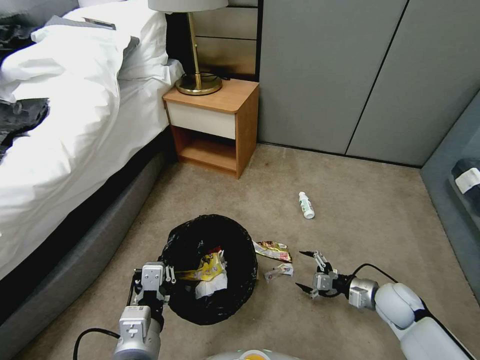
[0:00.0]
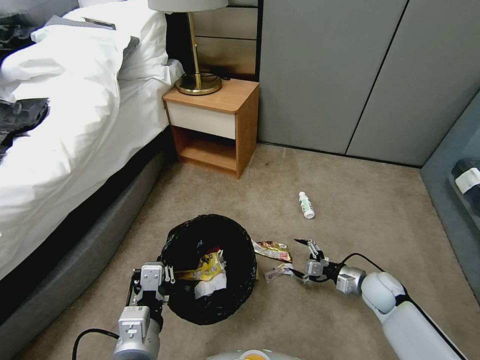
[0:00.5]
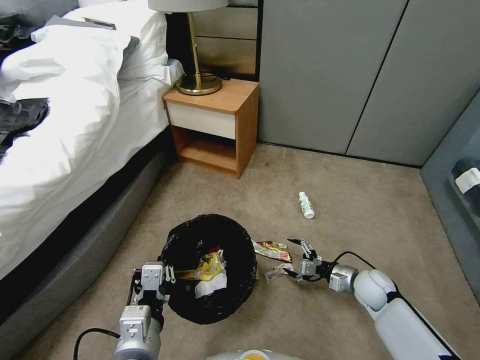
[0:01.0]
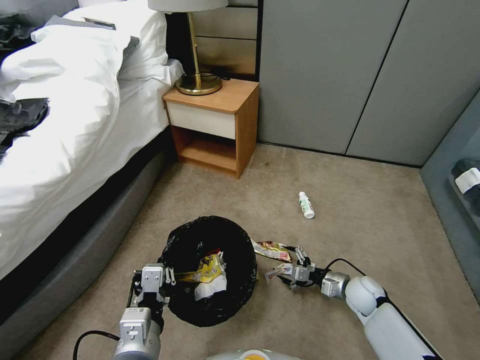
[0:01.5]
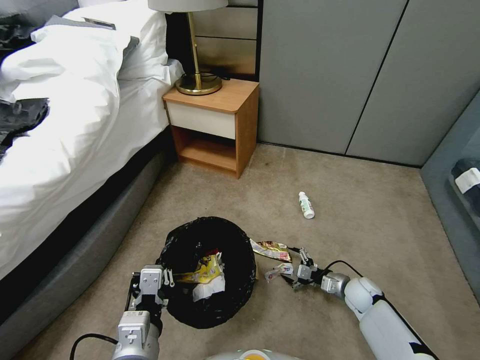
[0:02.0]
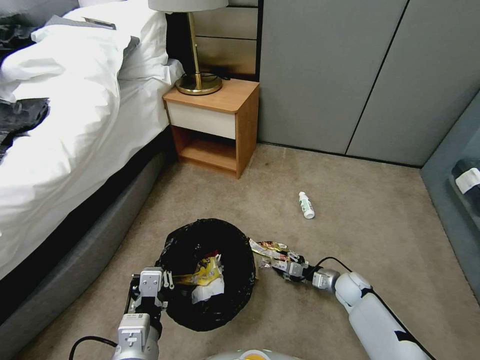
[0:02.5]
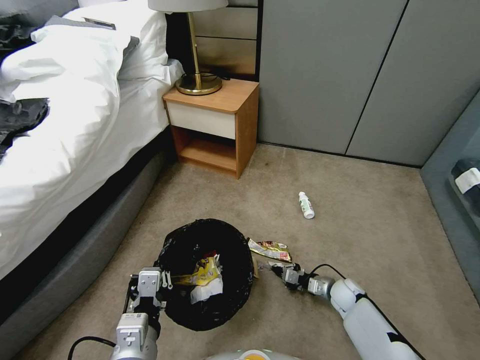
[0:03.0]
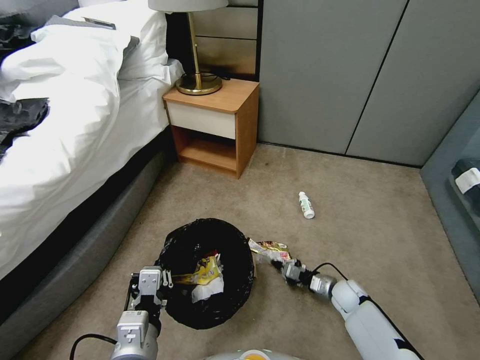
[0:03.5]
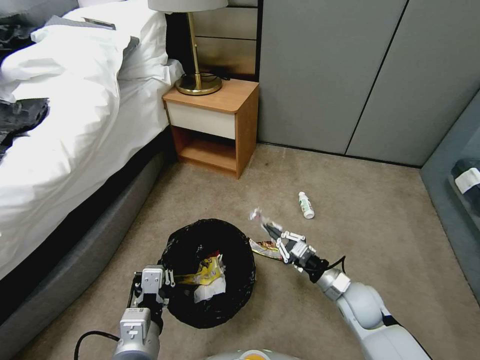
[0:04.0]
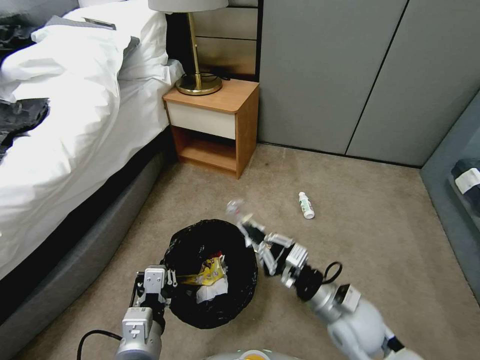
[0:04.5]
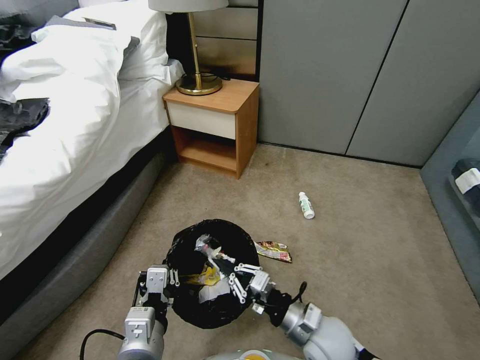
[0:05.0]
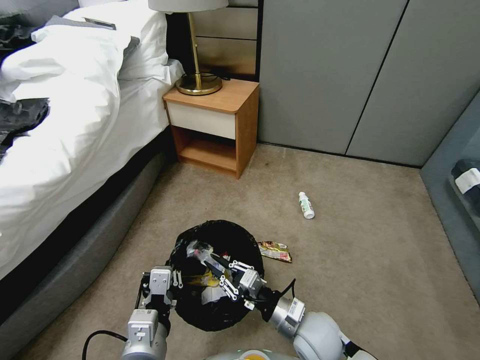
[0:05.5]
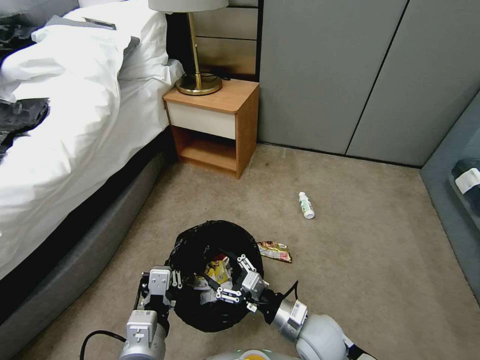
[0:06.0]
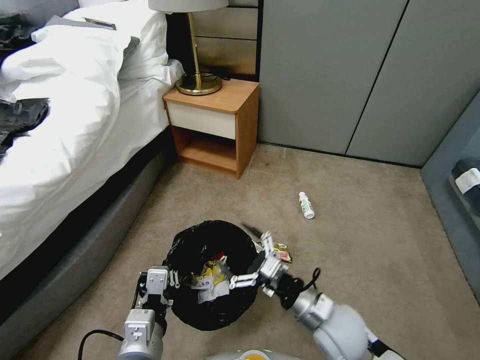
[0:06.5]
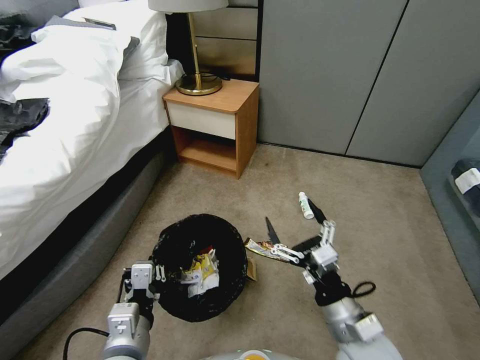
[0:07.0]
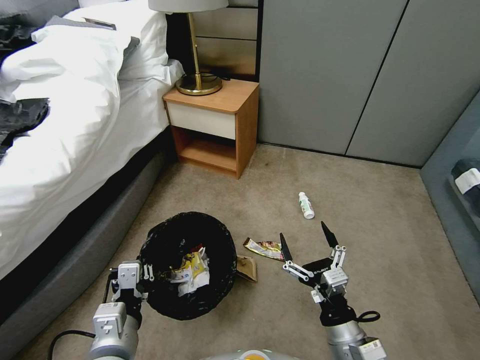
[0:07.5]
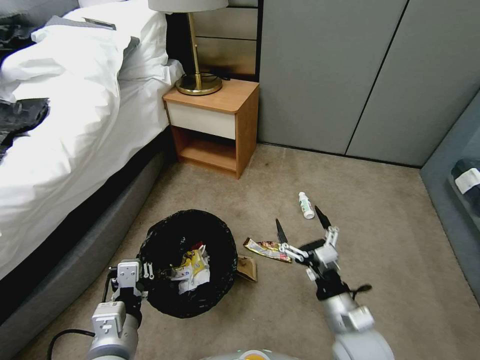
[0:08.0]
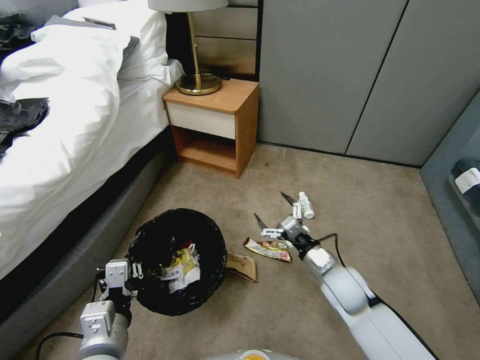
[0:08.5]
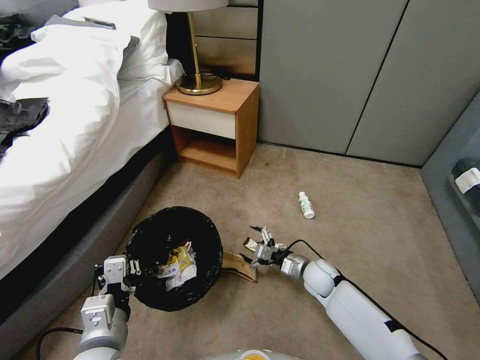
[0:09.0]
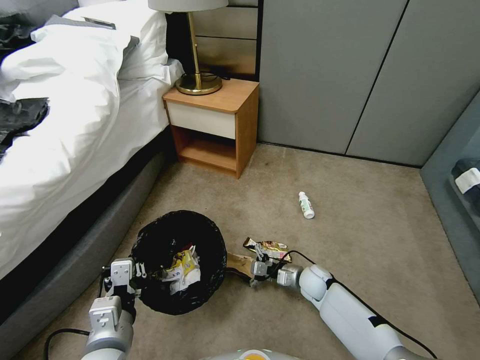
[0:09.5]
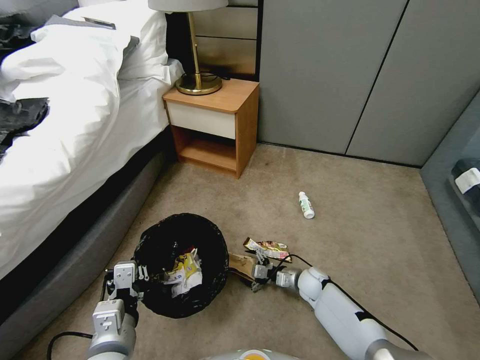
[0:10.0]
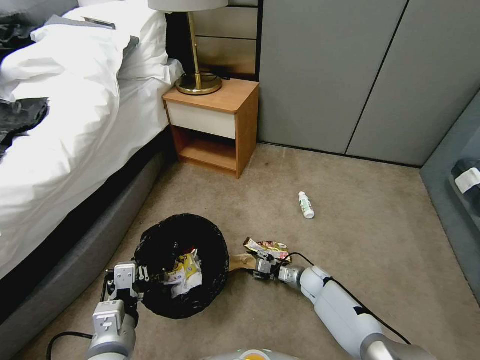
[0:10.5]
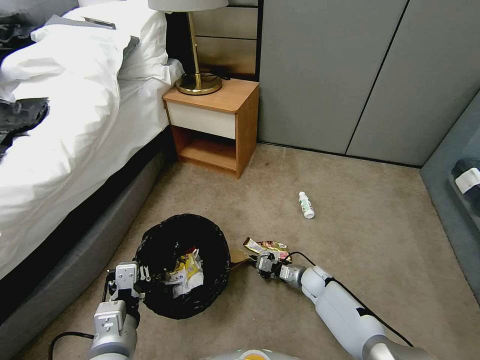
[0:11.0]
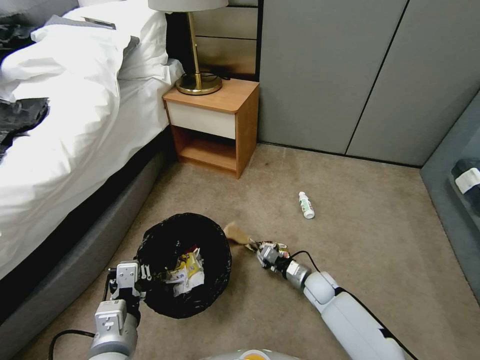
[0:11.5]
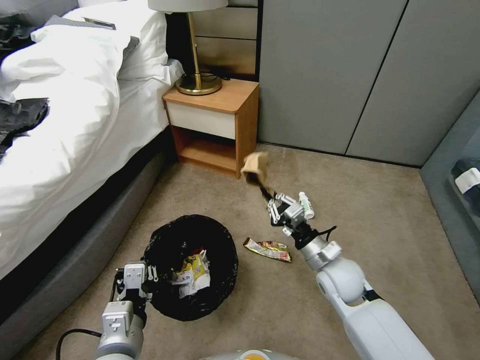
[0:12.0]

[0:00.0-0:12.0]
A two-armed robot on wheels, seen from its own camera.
Task of the whole recording: Pick up the trash bin, then pick up the garbage from the floor and place it into the trash bin.
0:00.0 to 0:02.0: The right gripper is displaced downward by some 10 cm.
0:02.0 to 0:04.0: The right gripper shifts some 15 cm upward, to the left and backward, and closes its fingers.
0:04.0 to 0:06.0: The right gripper travels to the left and backward by about 15 cm, and opens.
0:06.0 to 0:08.0: The right gripper goes roughly 10 cm to the right and upward.
0:08.0 to 0:10.0: The right gripper travels downward and forward by roughly 30 cm.
0:10.0 to 0:12.0: The right gripper moves upward, approximately 20 cm, and closes.

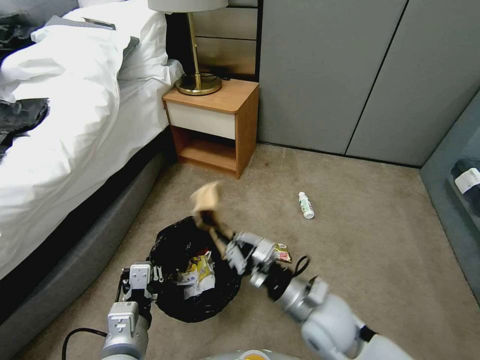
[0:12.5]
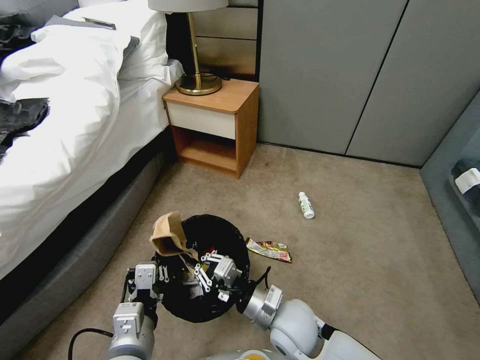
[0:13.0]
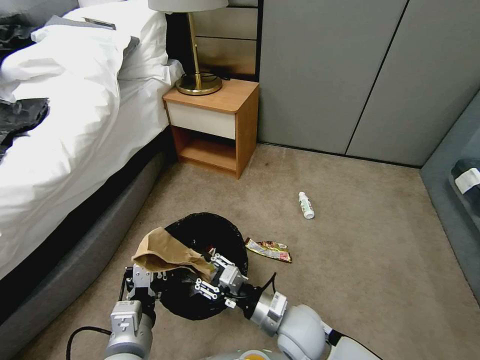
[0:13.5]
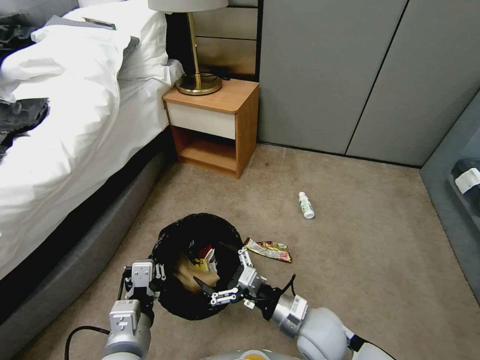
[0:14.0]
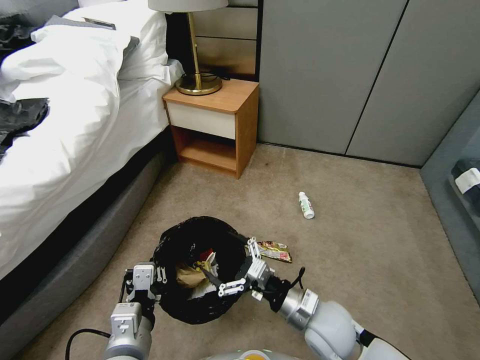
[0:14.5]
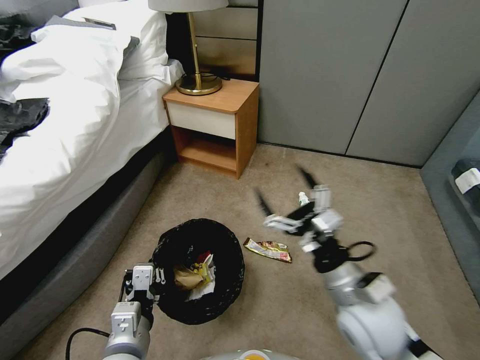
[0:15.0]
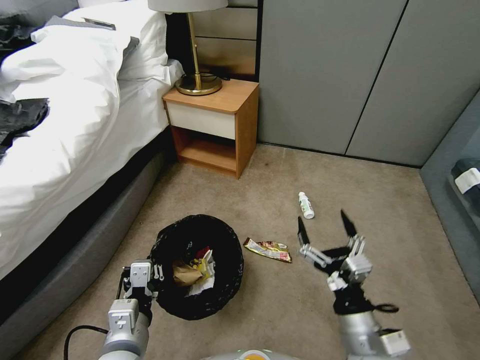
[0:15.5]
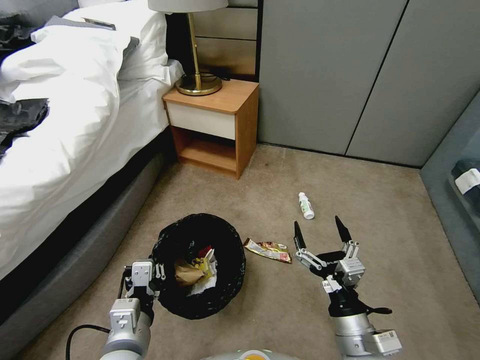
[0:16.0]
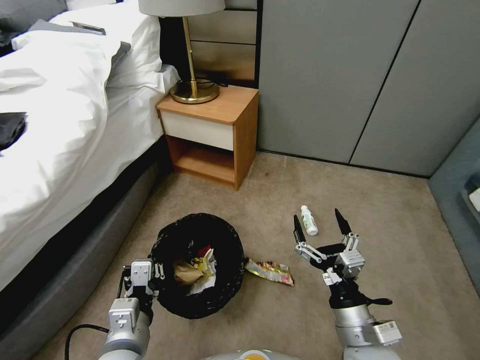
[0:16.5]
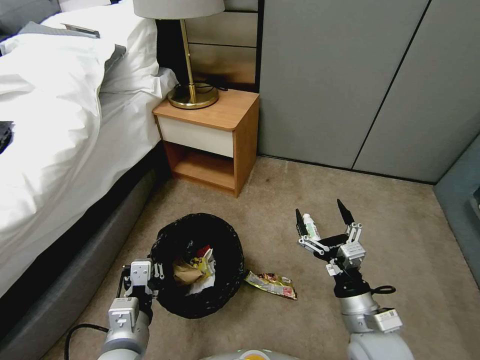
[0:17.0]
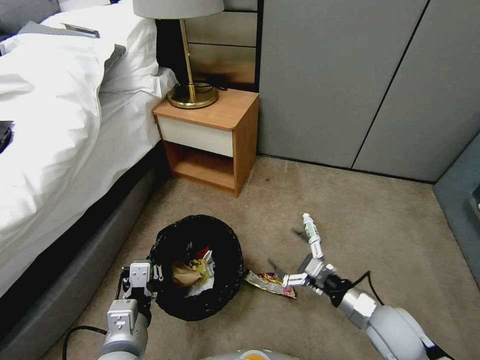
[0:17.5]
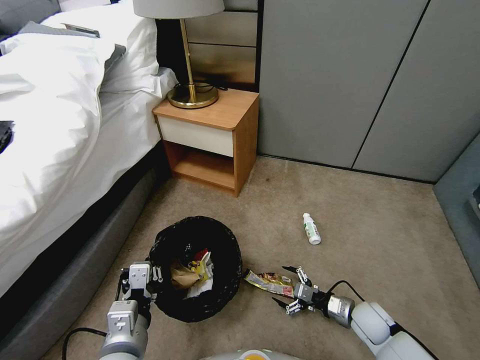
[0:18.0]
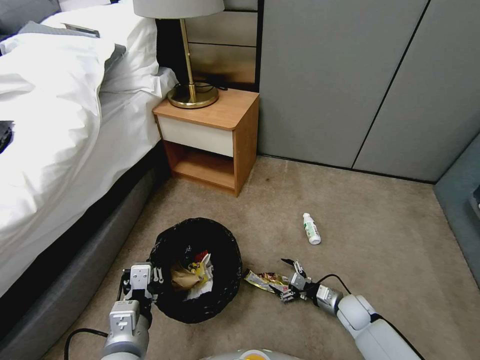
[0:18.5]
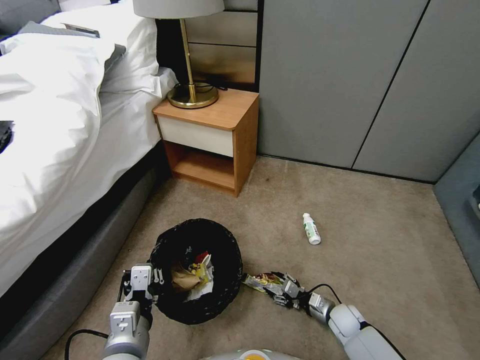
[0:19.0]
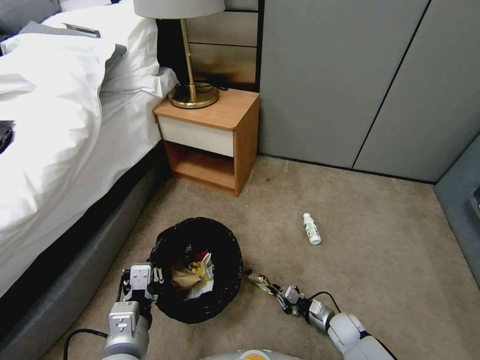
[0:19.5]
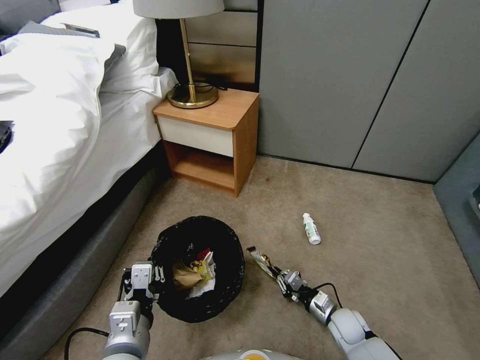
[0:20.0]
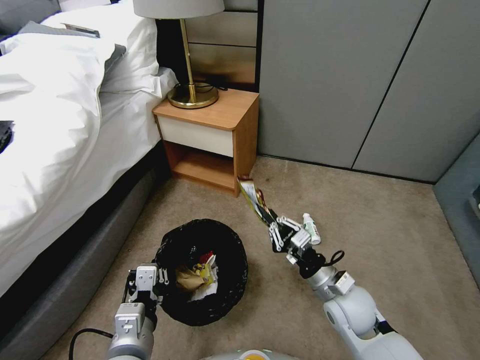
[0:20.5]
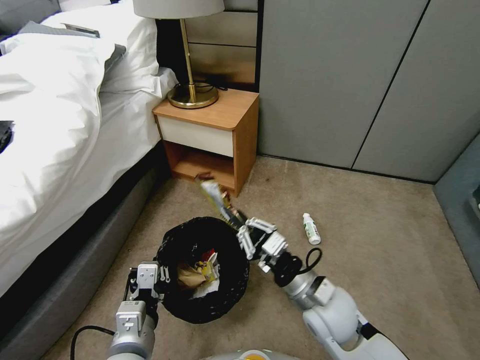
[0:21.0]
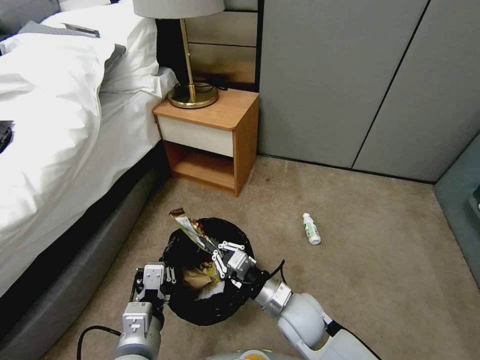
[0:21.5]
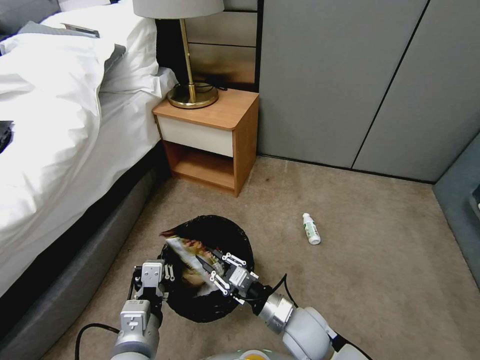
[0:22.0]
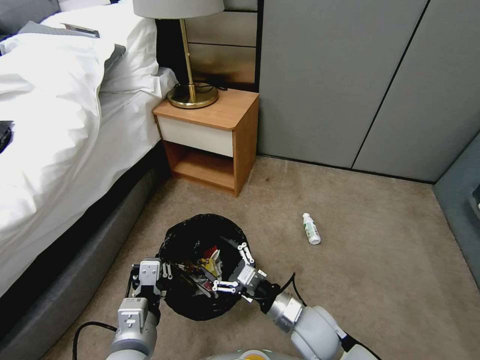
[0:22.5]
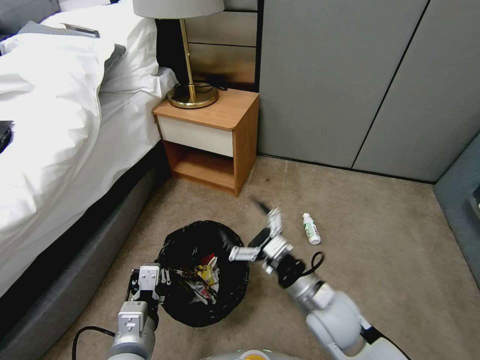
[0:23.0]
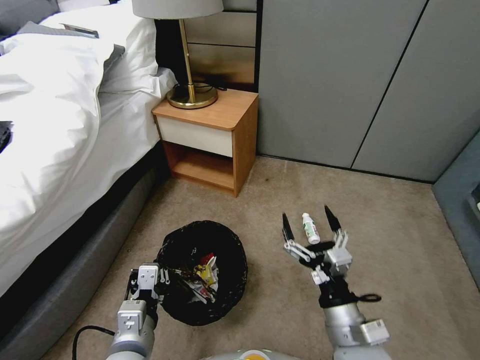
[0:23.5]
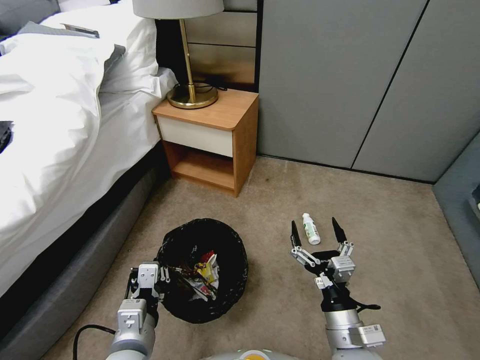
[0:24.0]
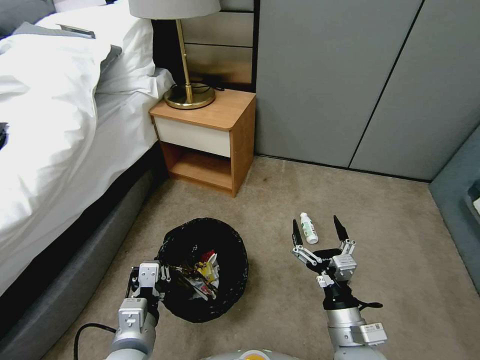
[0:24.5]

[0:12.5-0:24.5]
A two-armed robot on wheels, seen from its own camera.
Task of the whole recording: Pick up the trash bin, then pick up the garbage from the floor and place it into the trash bin.
0:12.5 to 0:14.5: The right gripper opens up.
0:14.5 to 0:16.5: The right gripper heads backward, covering about 5 cm, and moves roughly 10 cm upward and comes back.
0:16.5 to 0:18.5: The right gripper shifts approximately 30 cm downward, forward and to the right.
0:18.5 to 0:20.5: The right gripper is displaced upward and to the left by roughly 20 cm, and closes its fingers.
0:20.5 to 0:22.5: The right gripper shifts some 10 cm to the left, and opens.
0:22.5 to 0:24.5: The right gripper goes about 10 cm backward and to the right.

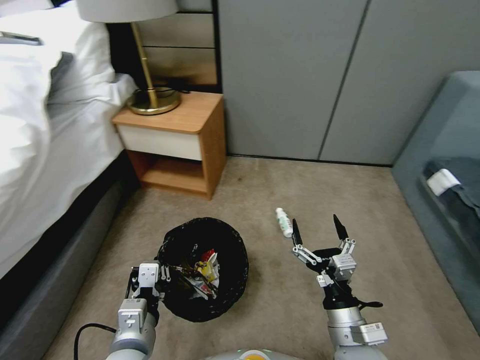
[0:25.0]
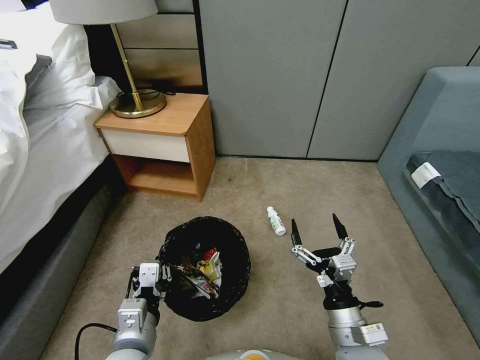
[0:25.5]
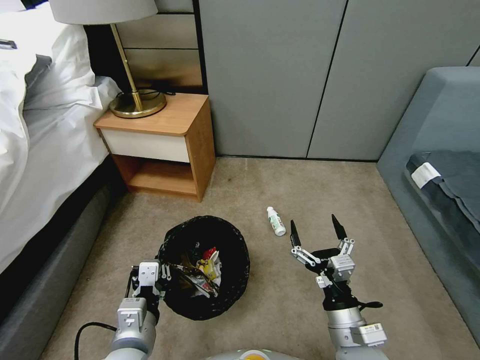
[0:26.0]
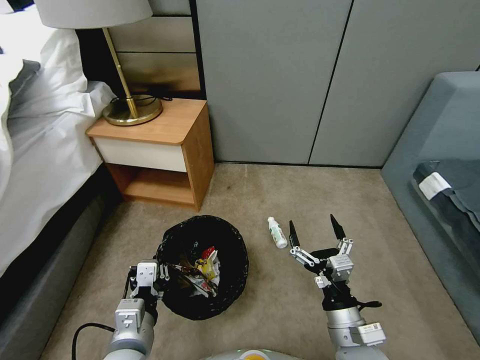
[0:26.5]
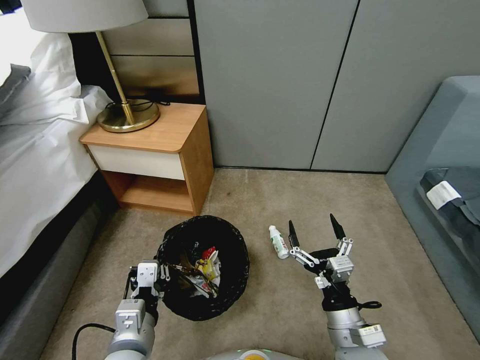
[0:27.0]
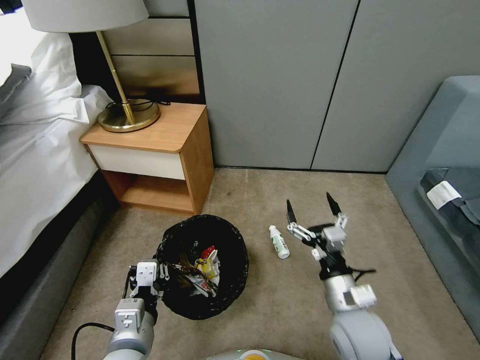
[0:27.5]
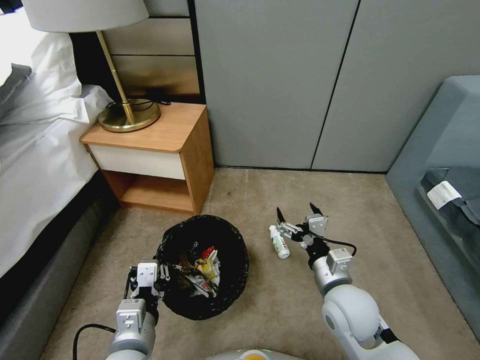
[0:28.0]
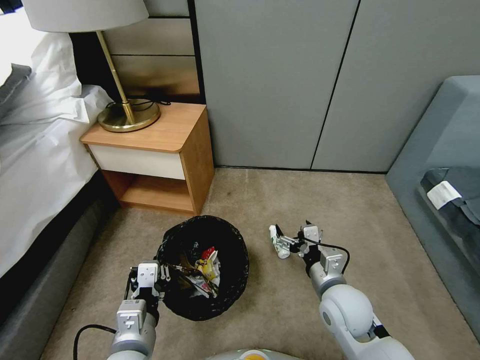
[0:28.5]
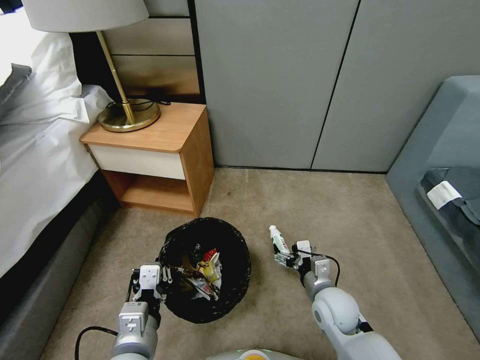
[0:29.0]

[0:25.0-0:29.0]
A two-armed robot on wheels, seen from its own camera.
Task of the whole recording: Pick up the trash bin, then pick up the garbage from the floor and place it into the trash bin.
0:27.0 to 0:29.0: The right gripper is displaced forward and downward by approximately 15 cm.
